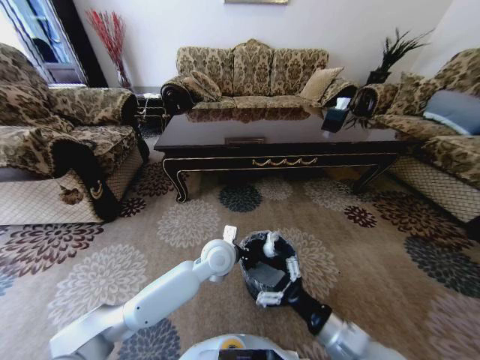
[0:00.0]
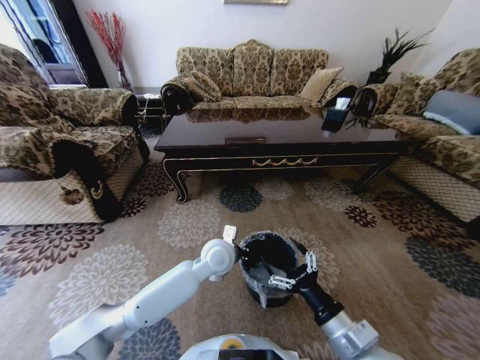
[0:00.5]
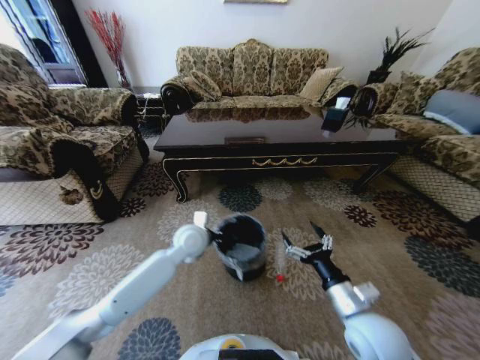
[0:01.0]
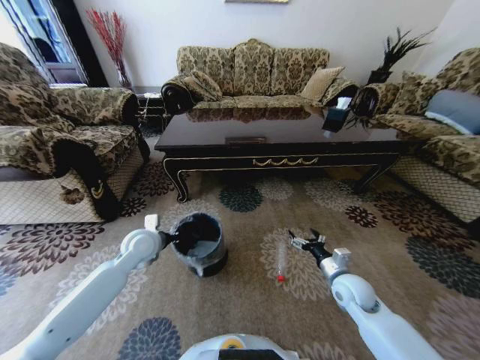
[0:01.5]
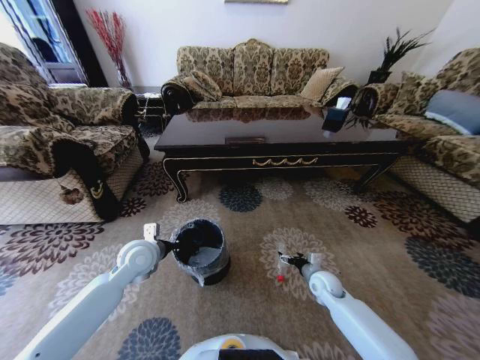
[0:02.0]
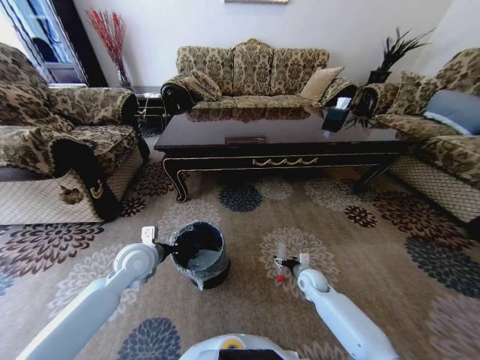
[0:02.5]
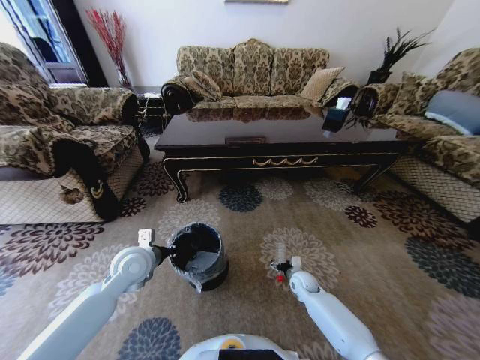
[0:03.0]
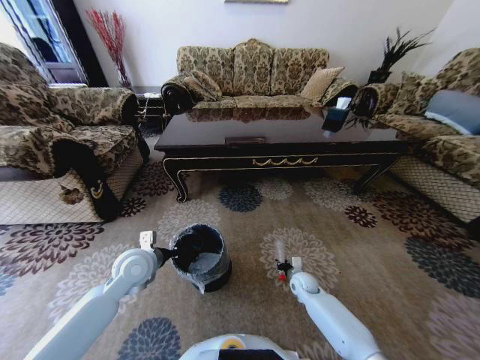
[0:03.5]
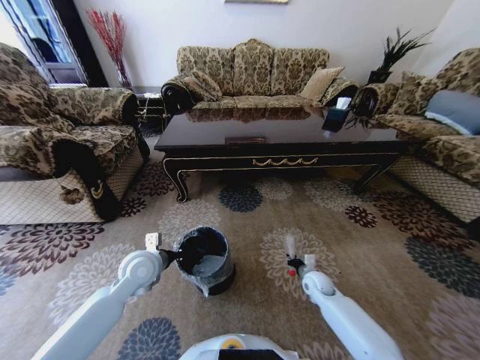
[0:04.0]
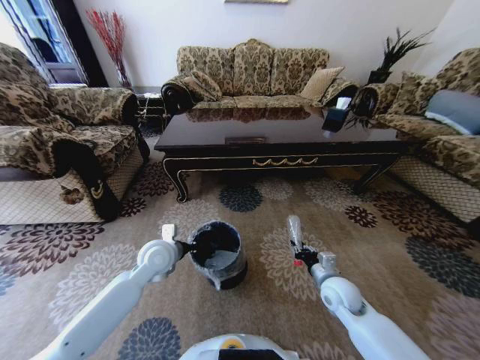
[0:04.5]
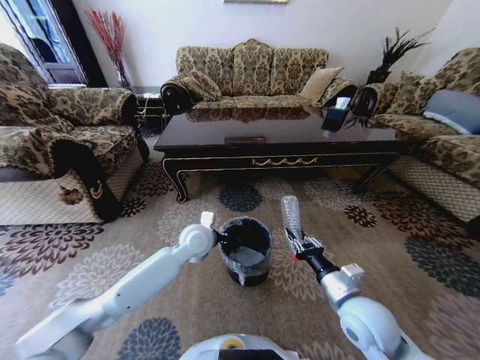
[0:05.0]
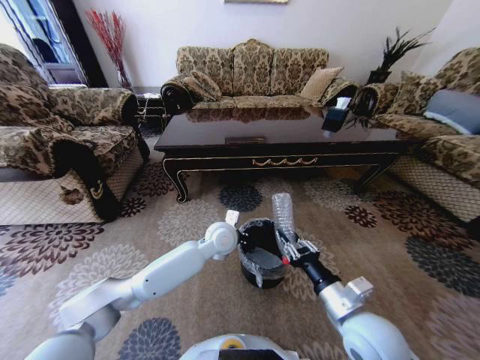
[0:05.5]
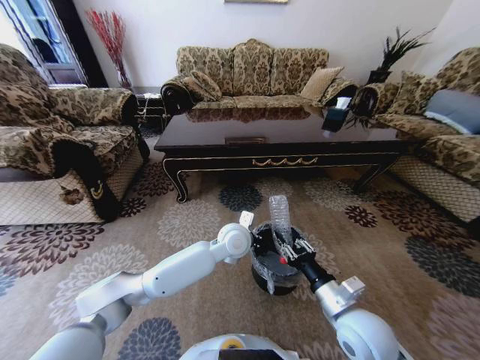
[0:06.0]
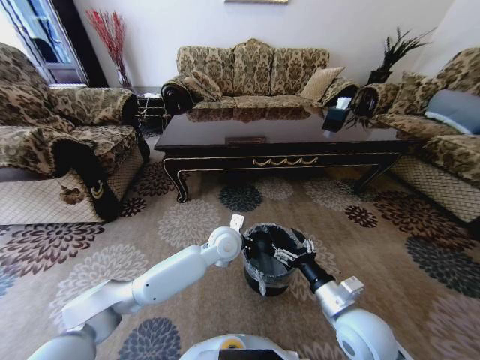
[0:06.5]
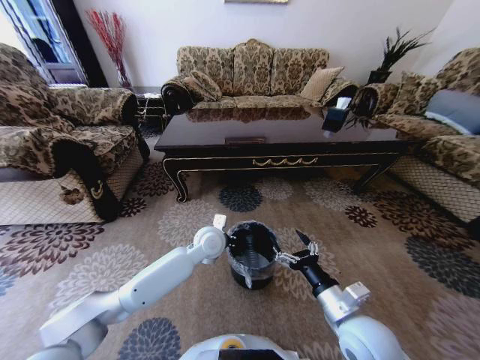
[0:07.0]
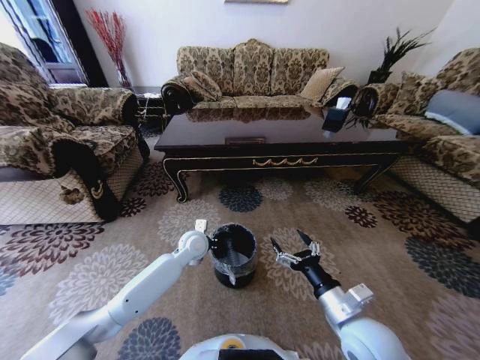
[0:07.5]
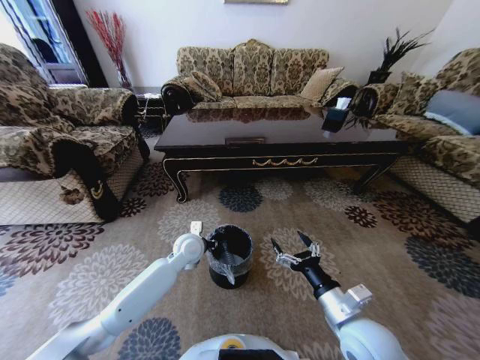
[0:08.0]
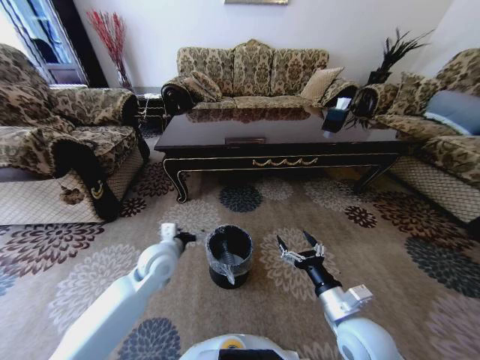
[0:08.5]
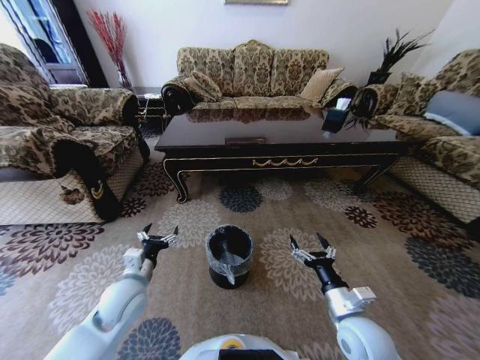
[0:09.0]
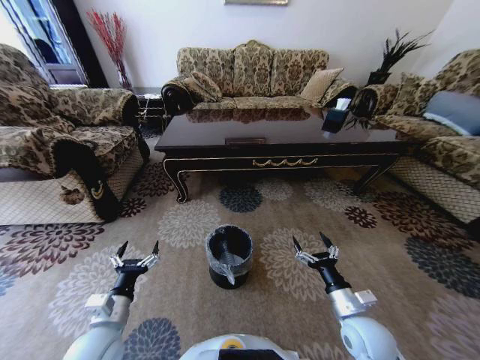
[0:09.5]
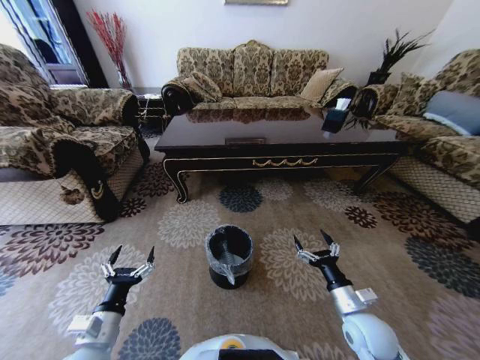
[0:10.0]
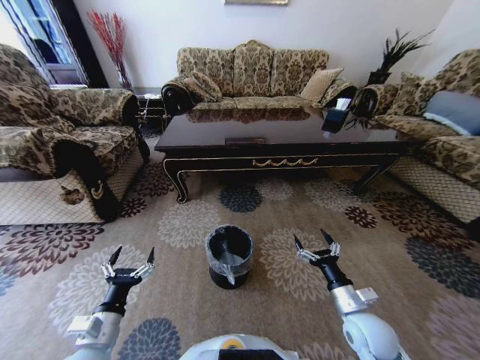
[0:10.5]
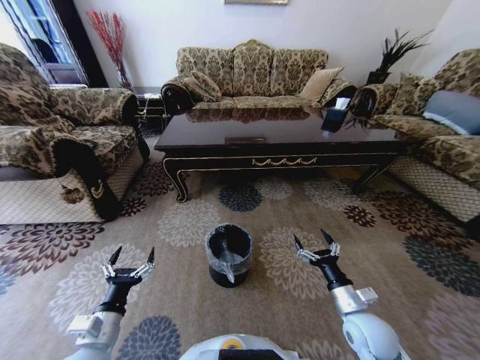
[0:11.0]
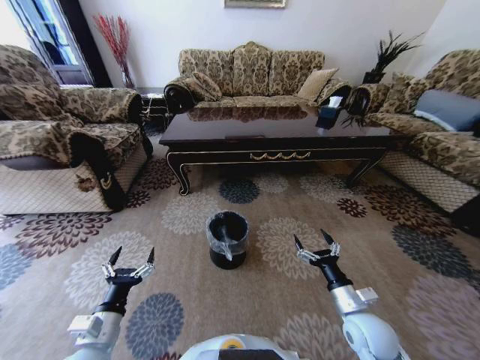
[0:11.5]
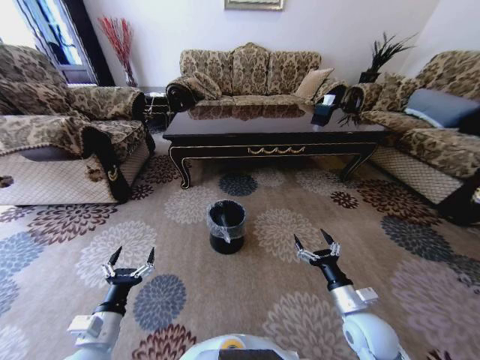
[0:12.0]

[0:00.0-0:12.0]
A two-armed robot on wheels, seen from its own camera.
Task of the whole recording: Move to the front of the table and pick up the trash from the floor, then place it into the trash bin.
0:00.0 to 0:02.0: The left gripper shifts approximately 20 cm to the left; the right gripper goes roughly 30 cm forward and downward.
0:02.0 to 0:04.0: The right gripper closes its fingers.
0:04.0 to 0:06.0: The left gripper is displaced to the right by roughly 25 cm. Meanwhile the right gripper heads upward and backward, covering roughly 25 cm.
0:06.0 to 0:08.0: The left gripper travels to the left and downward by about 15 cm, and opens its fingers. Meanwhile the right gripper opens up.
0:08.0 to 0:10.0: The left gripper is displaced backward and to the left by approximately 30 cm, and opens its fingers, while the right gripper is displaced downward and to the right by some 10 cm.

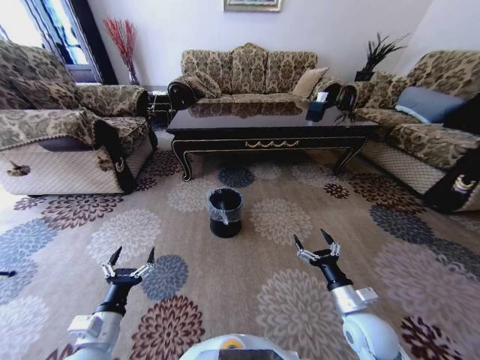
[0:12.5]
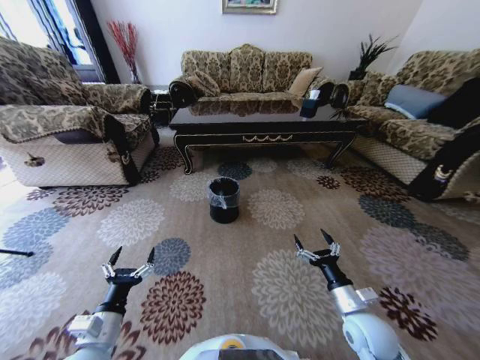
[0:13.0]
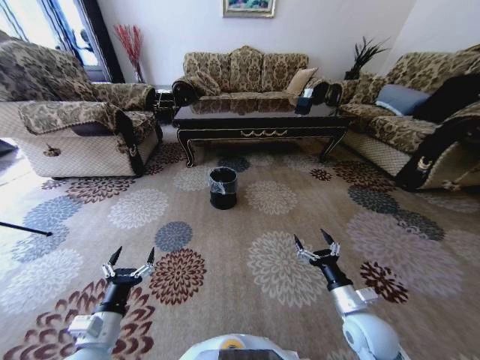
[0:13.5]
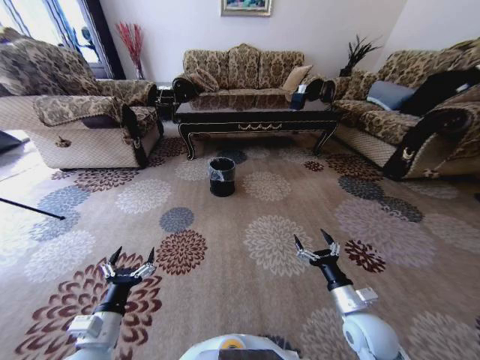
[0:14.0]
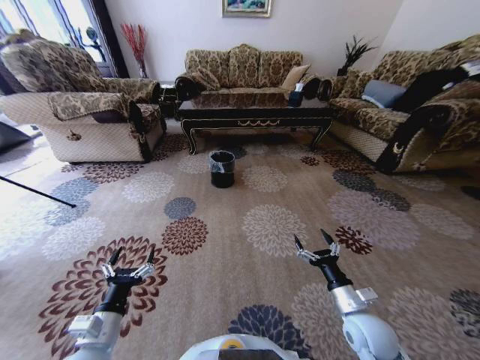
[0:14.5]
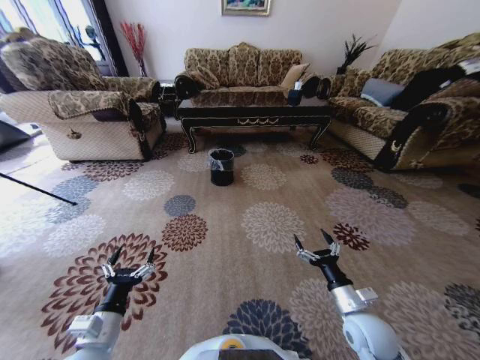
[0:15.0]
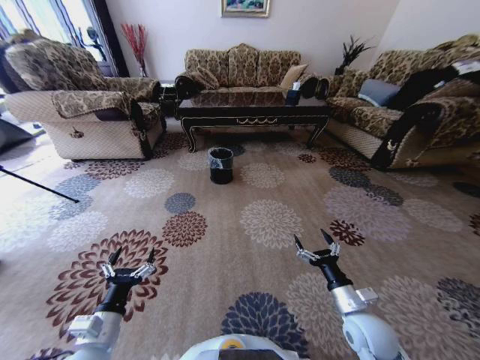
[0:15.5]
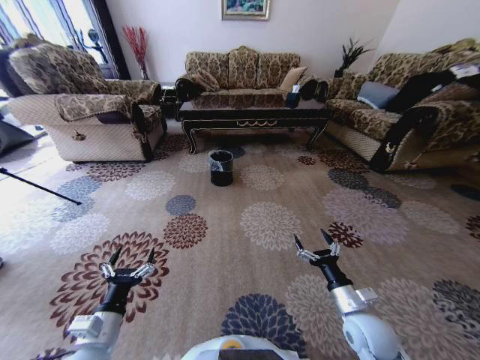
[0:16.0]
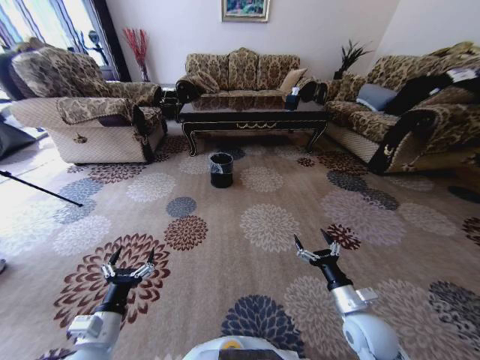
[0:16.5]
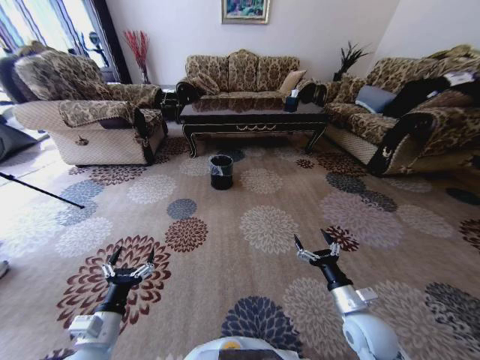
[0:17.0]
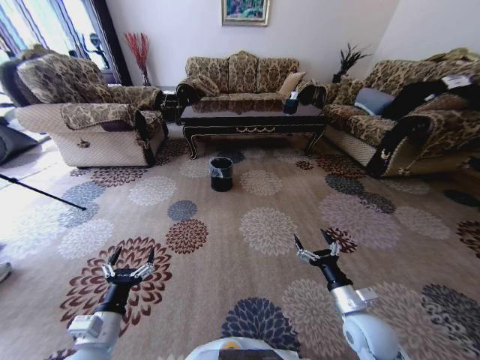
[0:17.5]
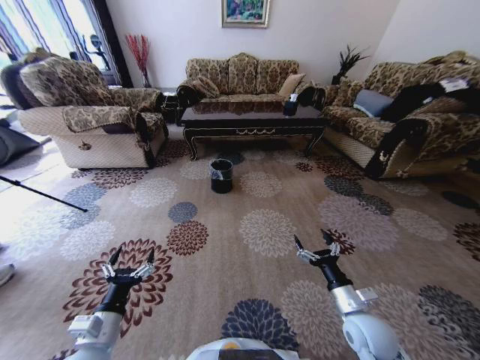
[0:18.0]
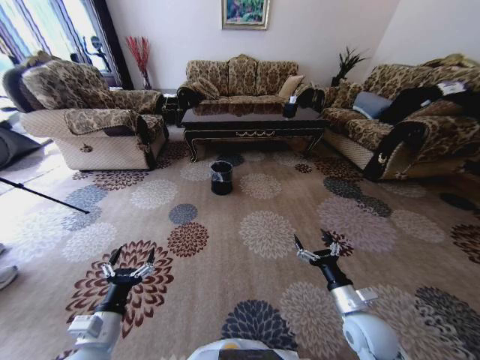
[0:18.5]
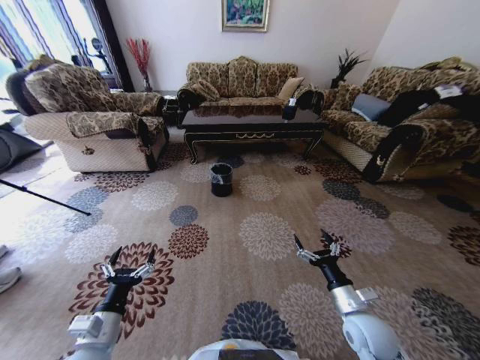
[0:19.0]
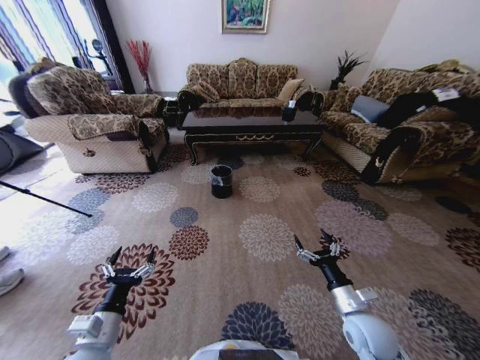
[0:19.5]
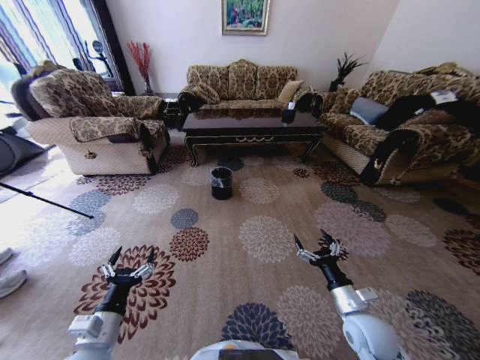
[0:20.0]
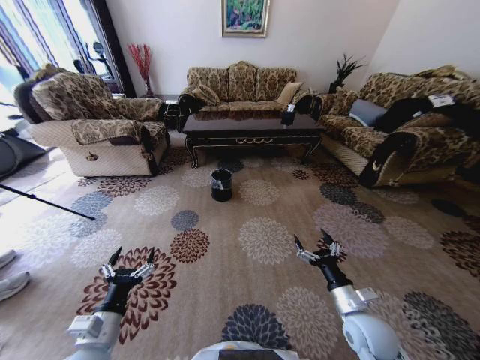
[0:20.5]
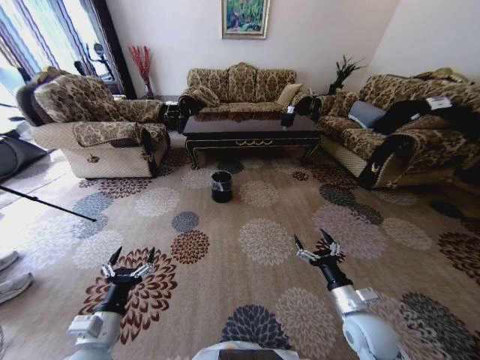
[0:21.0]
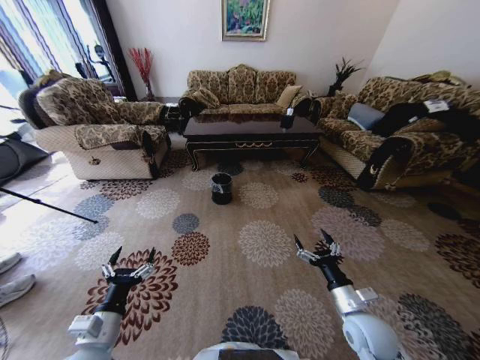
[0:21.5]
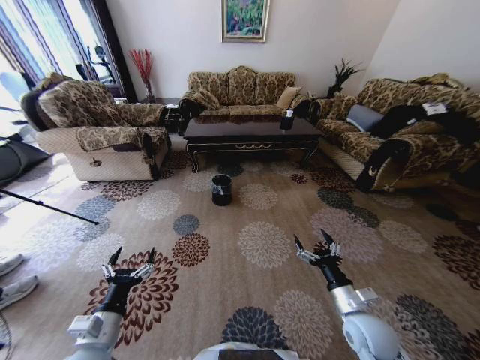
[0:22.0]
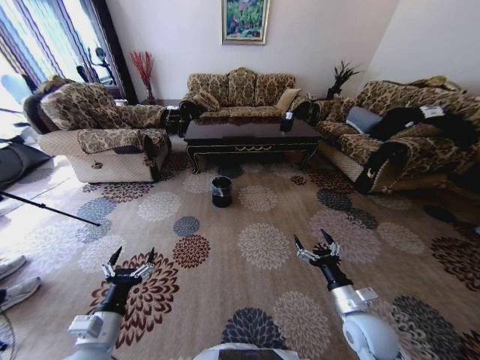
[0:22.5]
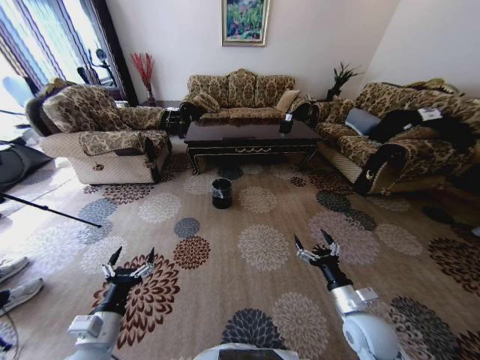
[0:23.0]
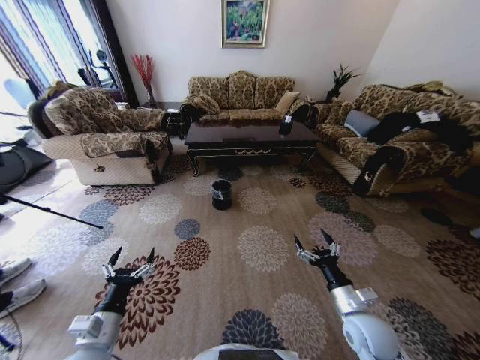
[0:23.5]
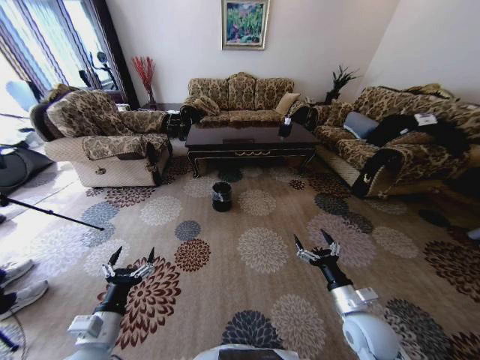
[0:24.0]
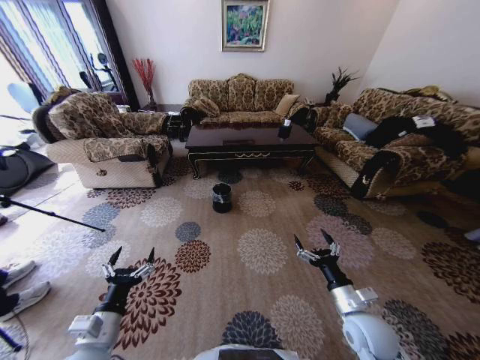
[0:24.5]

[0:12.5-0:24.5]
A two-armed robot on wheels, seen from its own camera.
Task of the whole recording: Move to the front of the table and pick up the trash from the floor, then place it into the trash bin.
0:14.5 to 0:16.5: The two grippers keep their place.

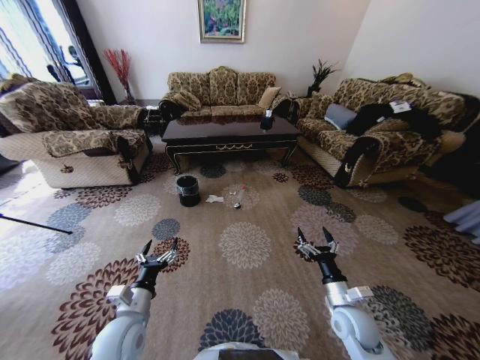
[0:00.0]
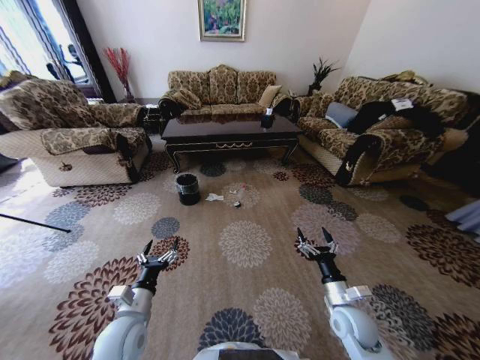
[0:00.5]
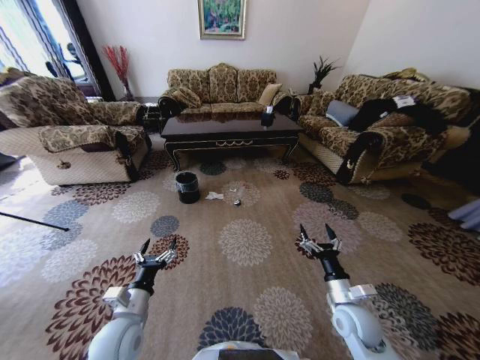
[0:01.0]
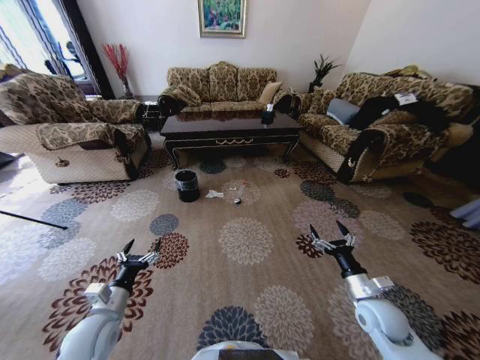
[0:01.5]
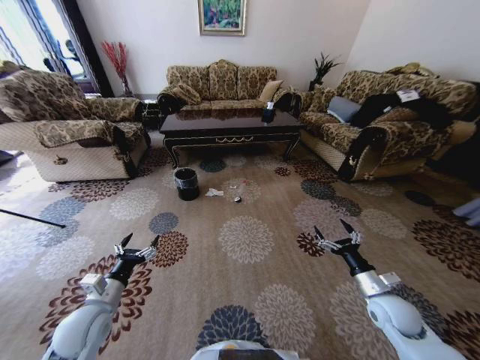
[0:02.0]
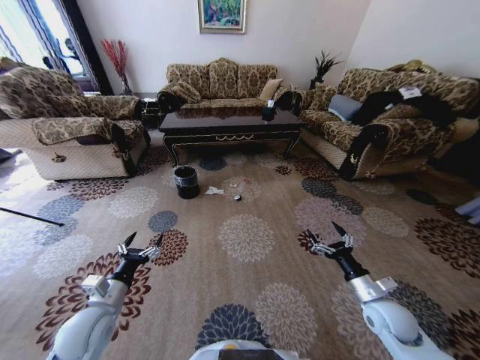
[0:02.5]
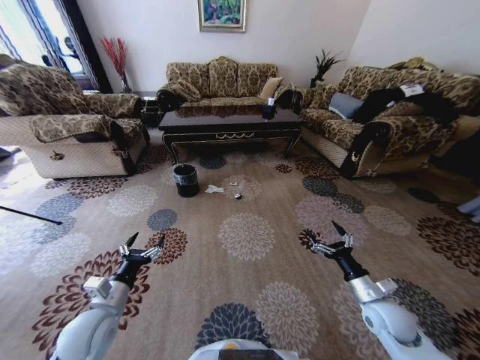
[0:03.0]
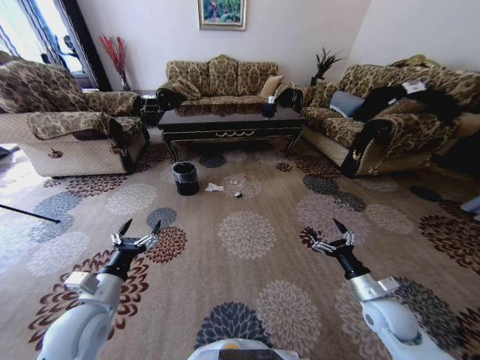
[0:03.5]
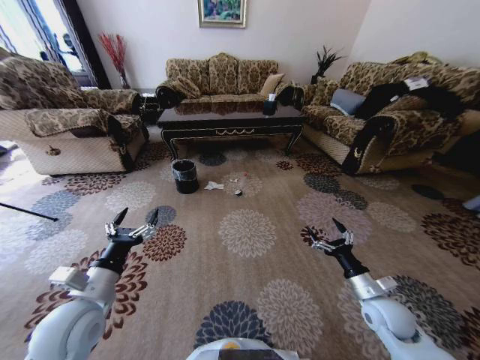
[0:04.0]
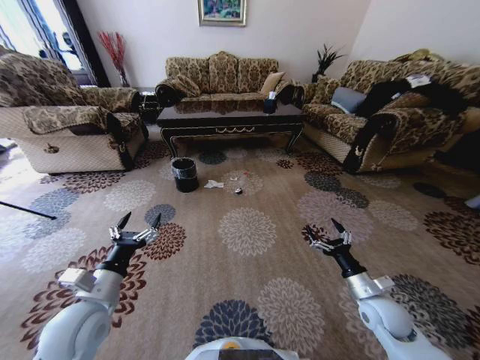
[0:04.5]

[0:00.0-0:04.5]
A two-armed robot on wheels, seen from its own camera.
Task of the whole recording: Move to the front of the table and pick up the trash from the floor, then place it into the trash bin.
0:00.0 to 0:02.0: The left gripper heads to the left, covering approximately 10 cm; the right gripper is displaced to the right by some 10 cm.
0:02.0 to 0:04.5: The left gripper travels upward by about 5 cm.
